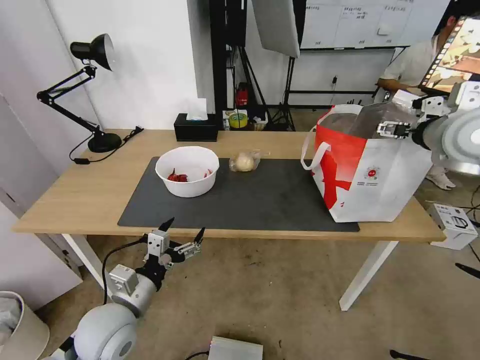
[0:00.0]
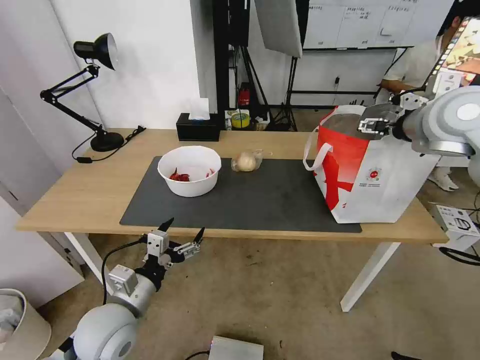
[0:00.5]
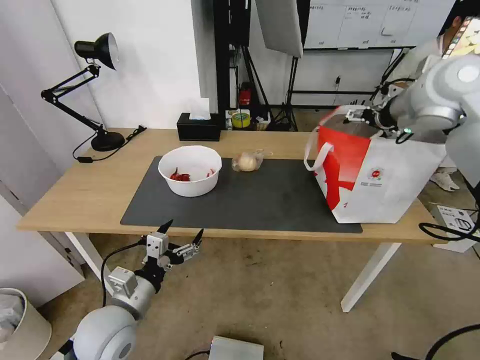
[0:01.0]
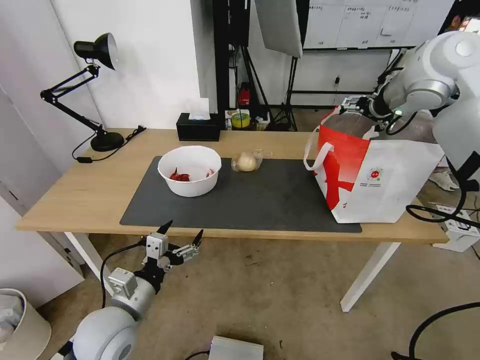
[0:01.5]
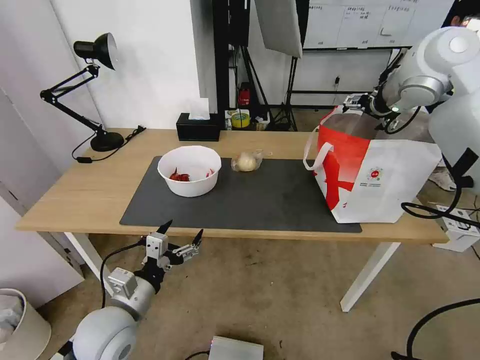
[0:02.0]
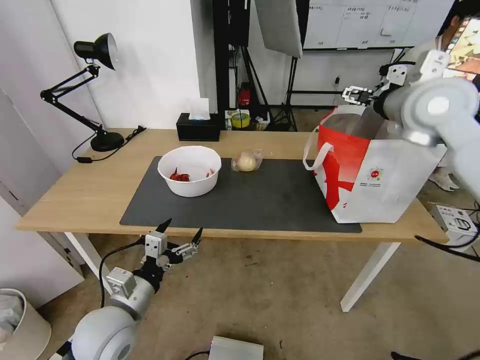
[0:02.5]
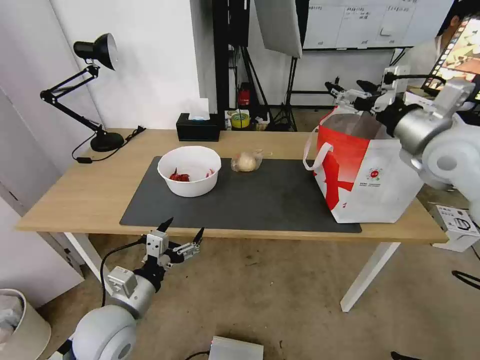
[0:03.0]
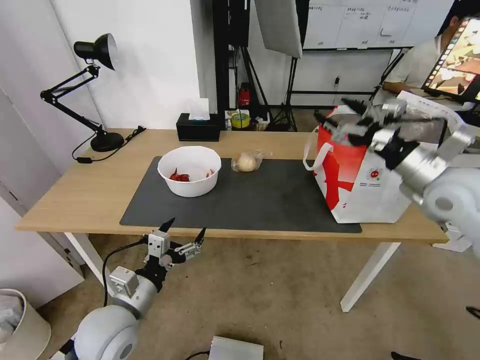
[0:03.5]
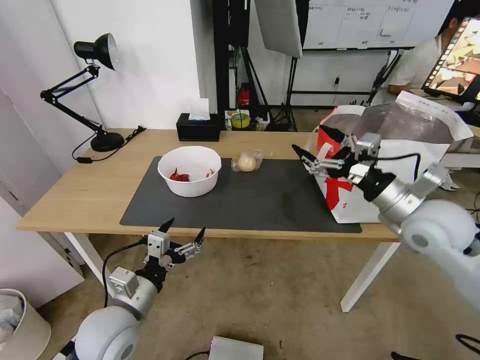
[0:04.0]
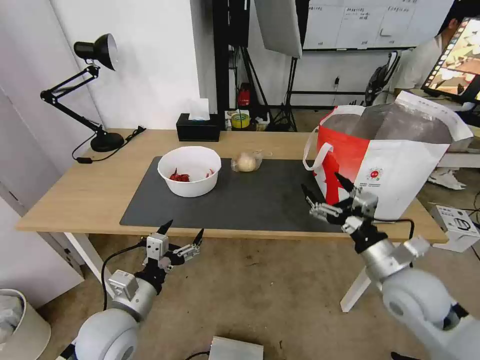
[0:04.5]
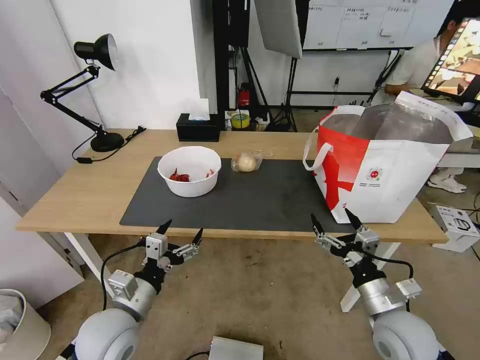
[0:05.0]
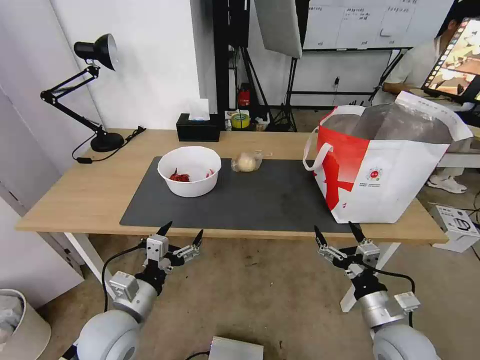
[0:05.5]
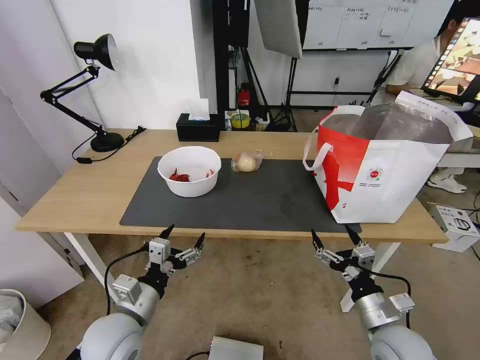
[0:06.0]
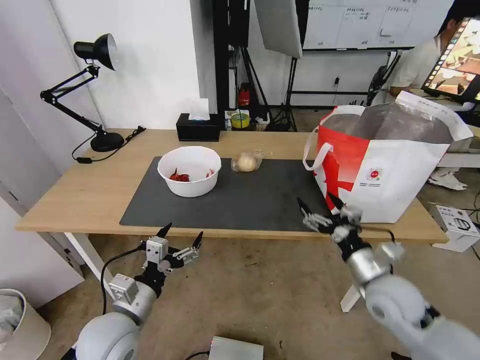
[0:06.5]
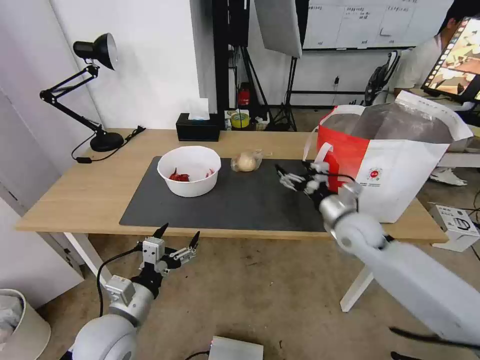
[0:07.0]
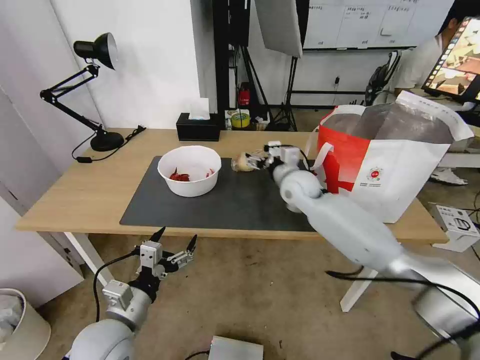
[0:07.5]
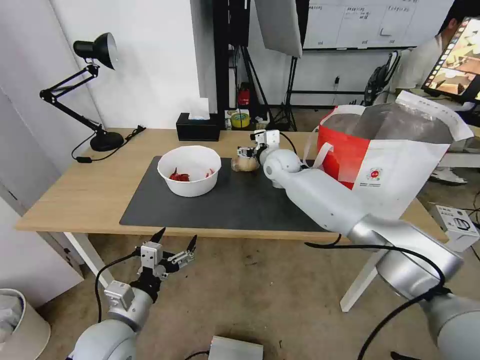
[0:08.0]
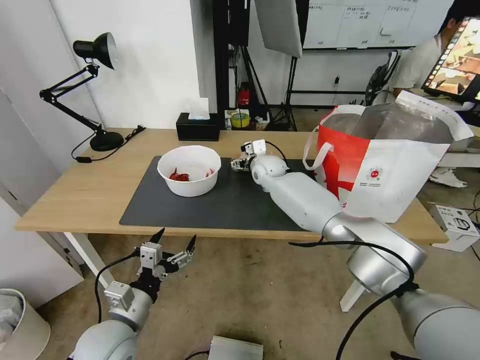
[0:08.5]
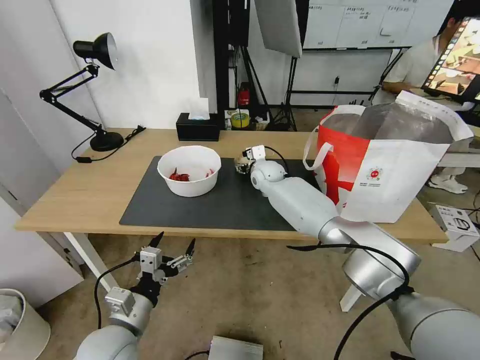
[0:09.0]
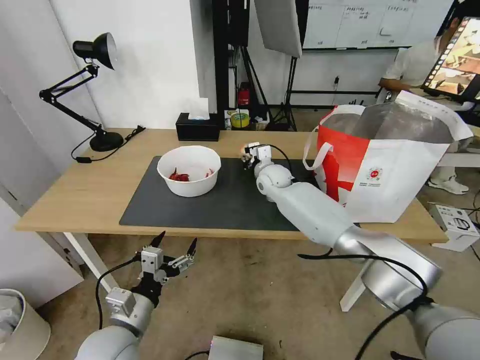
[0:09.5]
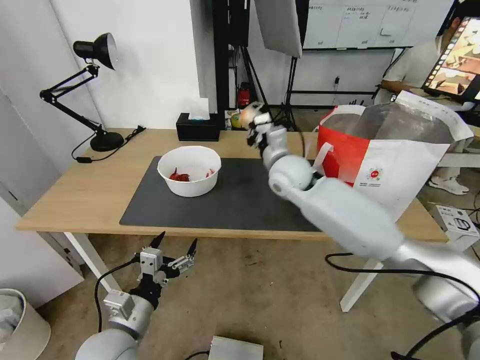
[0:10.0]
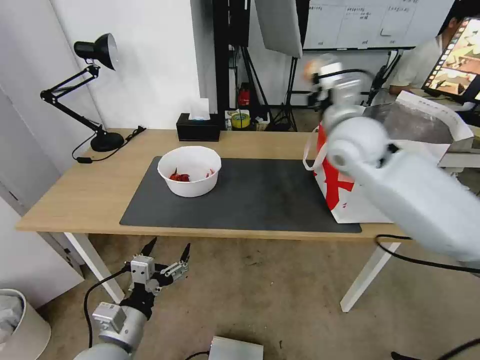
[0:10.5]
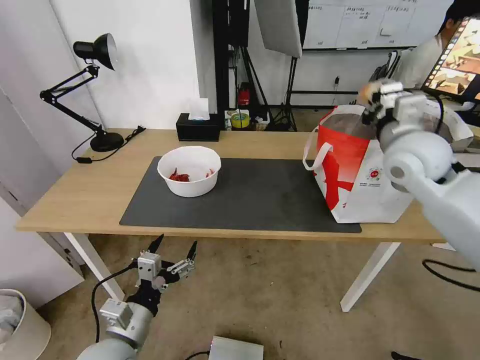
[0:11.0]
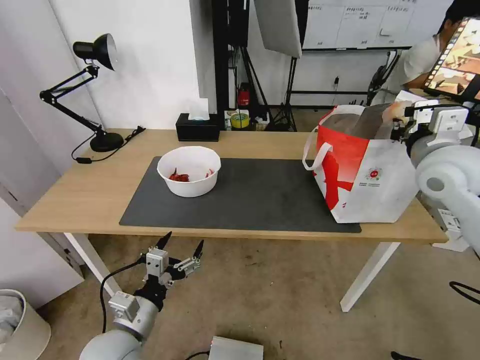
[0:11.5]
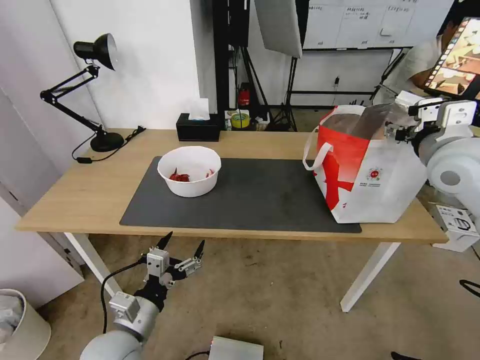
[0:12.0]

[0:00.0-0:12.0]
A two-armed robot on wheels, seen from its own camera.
Task of the whole recording: Pick up the trash from the table and place it into the takeout bag.
0:00.0 to 0:02.0: The right gripper goes approximately 15 cm forward, upward and to the left.
0:02.0 to 0:04.0: The right gripper moves downward and backward, approximately 30 cm.
0:04.0 to 0:06.0: The right gripper goes roughly 25 cm downward and backward.
0:06.0 to 0:08.0: The right gripper shifts approximately 50 cm forward and to the left.
0:08.0 to 0:10.0: The right gripper moves backward, roughly 10 cm, and closes its fingers.
0:10.0 to 0:12.0: The right gripper is displaced to the right, upward and backward by roughly 30 cm, and opens its fingers.

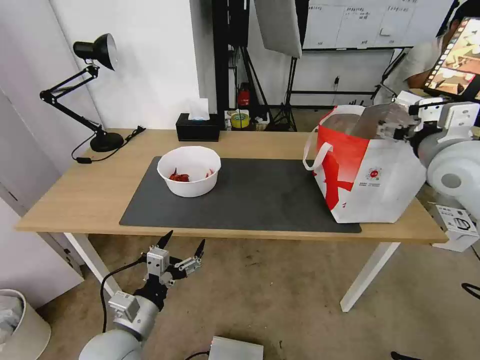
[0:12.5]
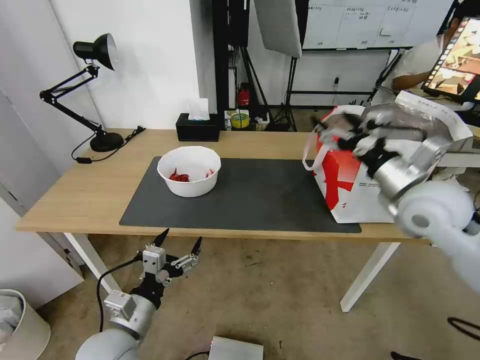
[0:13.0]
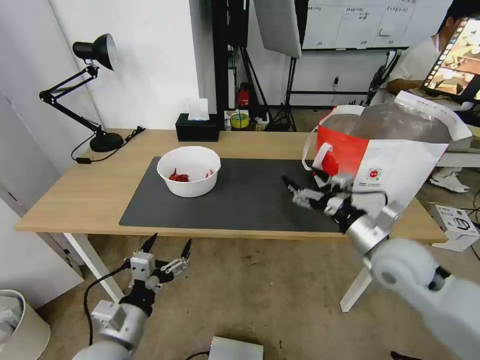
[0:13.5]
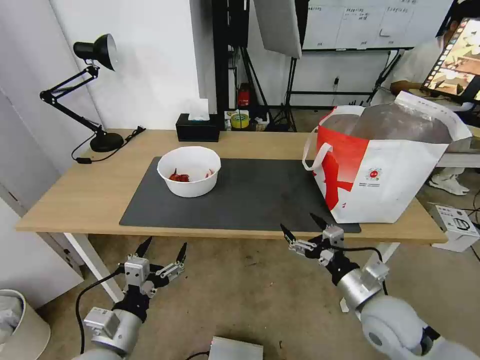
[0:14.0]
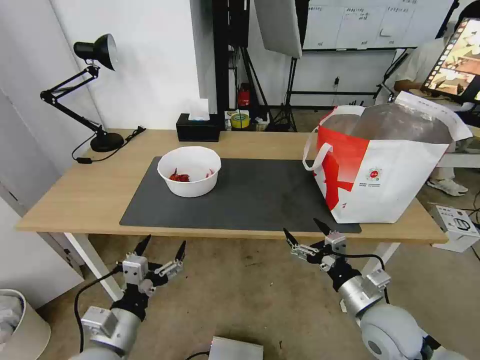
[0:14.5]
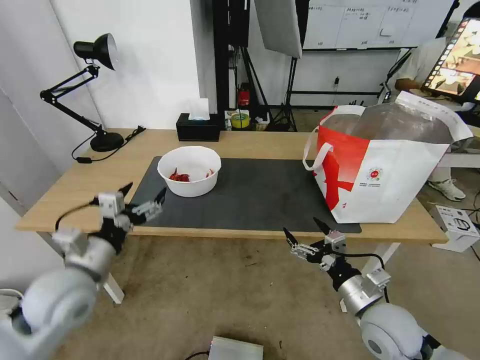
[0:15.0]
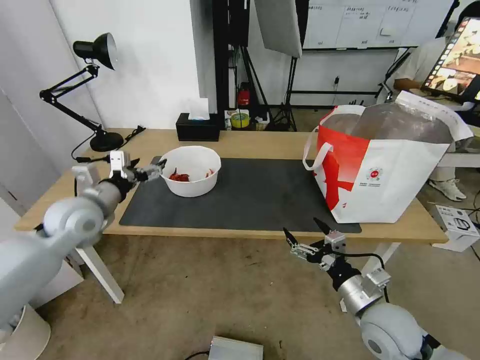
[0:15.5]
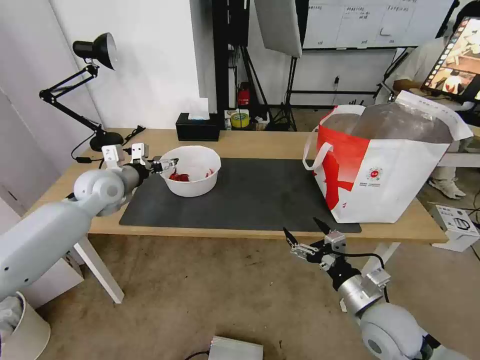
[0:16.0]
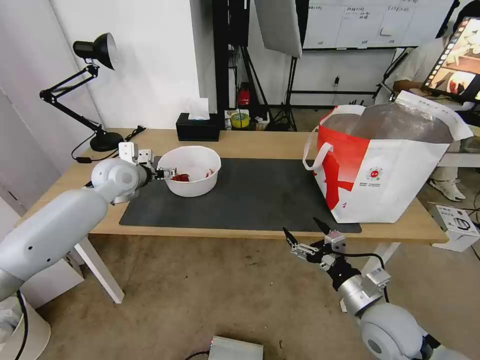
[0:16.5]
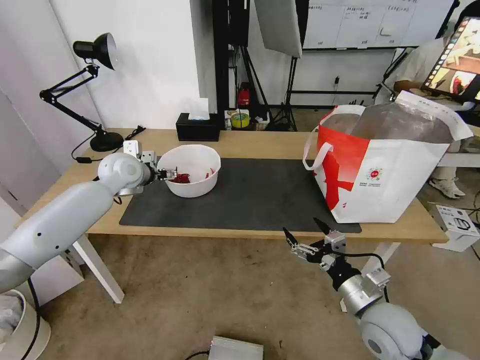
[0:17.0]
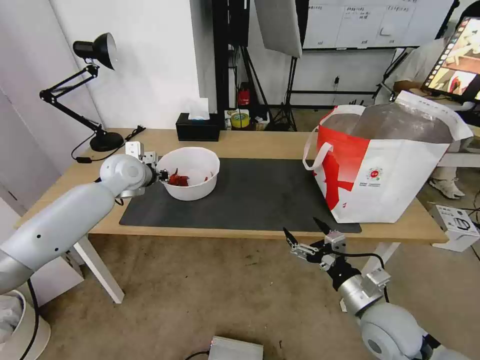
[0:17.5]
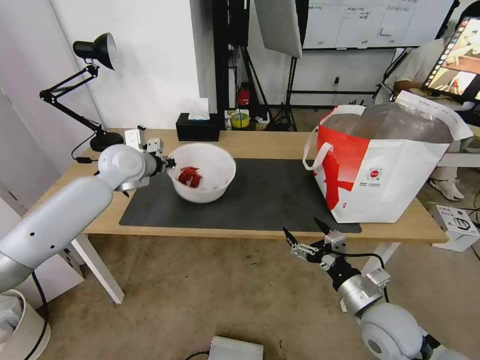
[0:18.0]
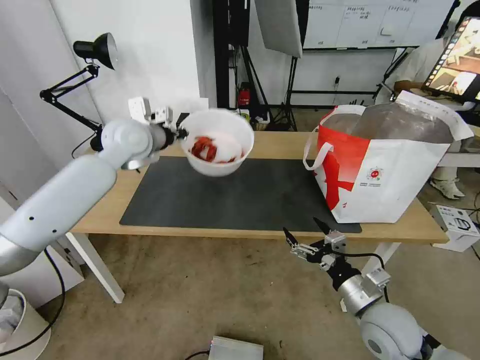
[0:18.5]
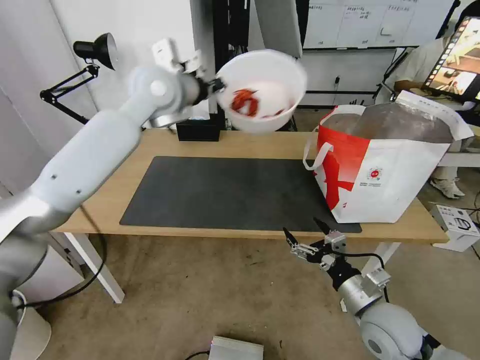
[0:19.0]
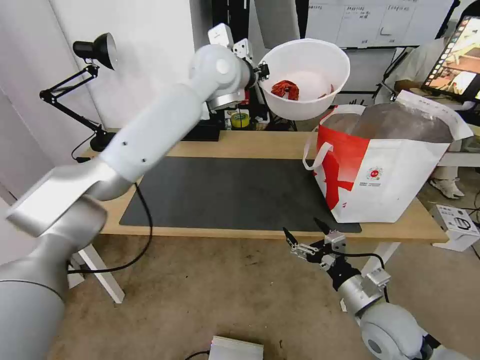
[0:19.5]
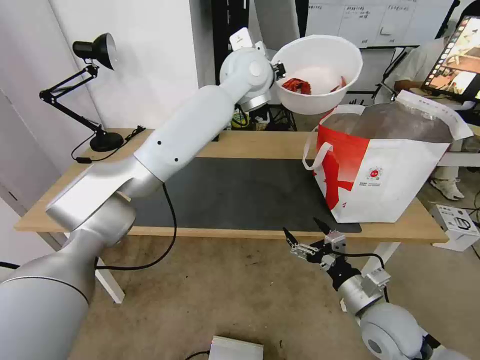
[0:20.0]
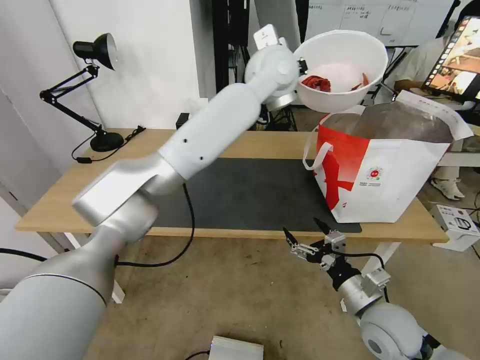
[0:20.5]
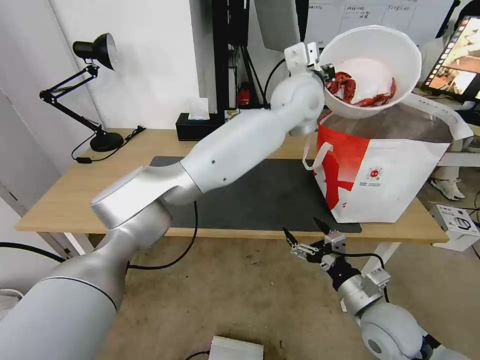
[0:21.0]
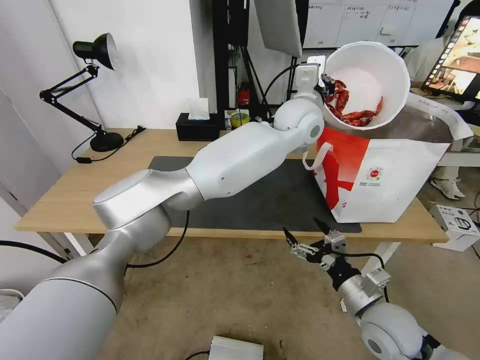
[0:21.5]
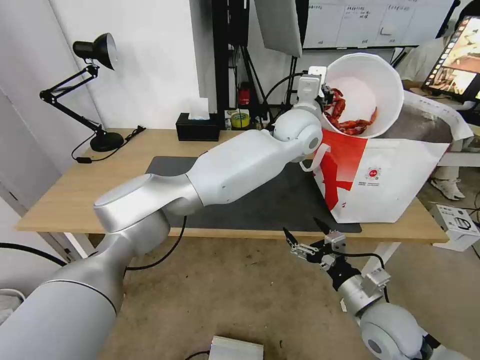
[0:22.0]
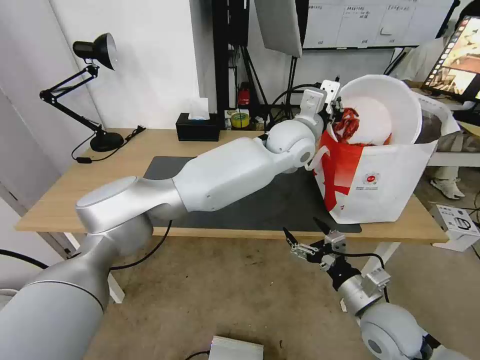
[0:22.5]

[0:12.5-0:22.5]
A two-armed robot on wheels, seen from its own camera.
Task of the whole recording: Pick up the trash from the table and place it into the takeout bag.
0:12.5 to 0:14.5: The right gripper travels downward and backward by about 30 cm.
0:14.5 to 0:16.5: The left gripper heads forward, covering approximately 35 cm.
0:16.5 to 0:18.5: The left gripper is displaced upward and to the right by roughly 15 cm, and closes up.
0:18.5 to 0:20.5: The left gripper is displaced to the right by some 30 cm.
0:20.5 to 0:22.5: The left gripper goes about 10 cm downward.

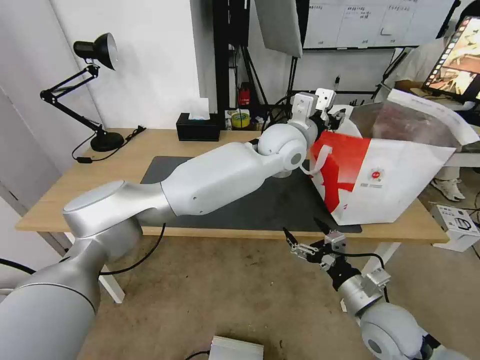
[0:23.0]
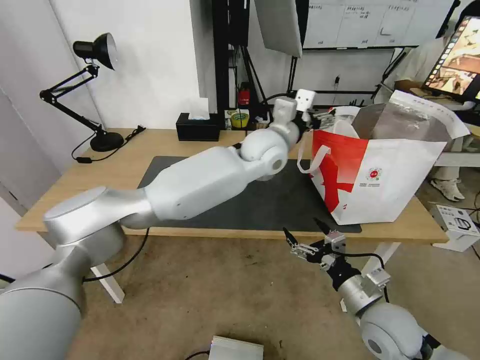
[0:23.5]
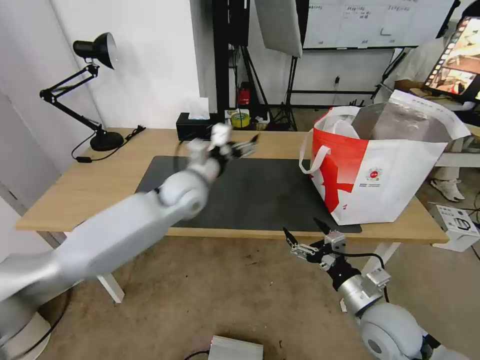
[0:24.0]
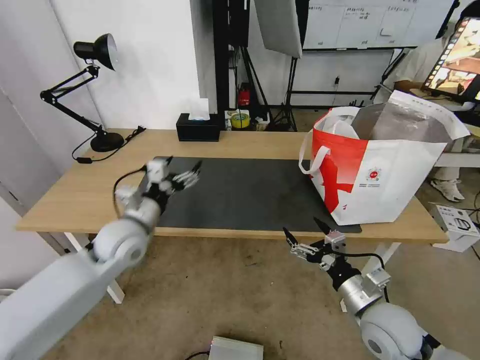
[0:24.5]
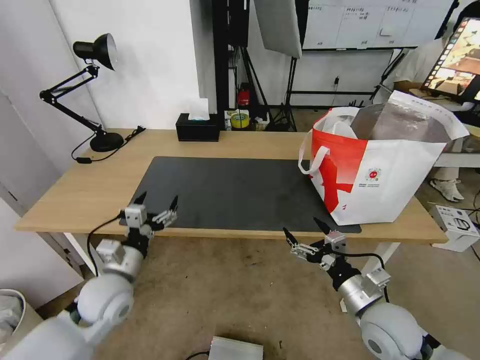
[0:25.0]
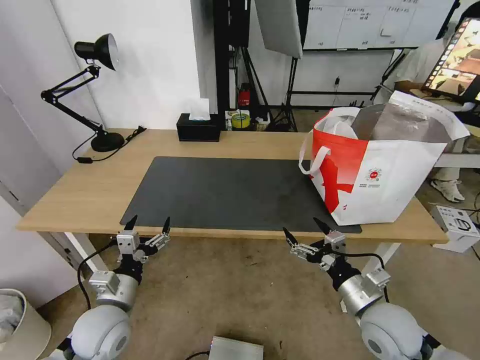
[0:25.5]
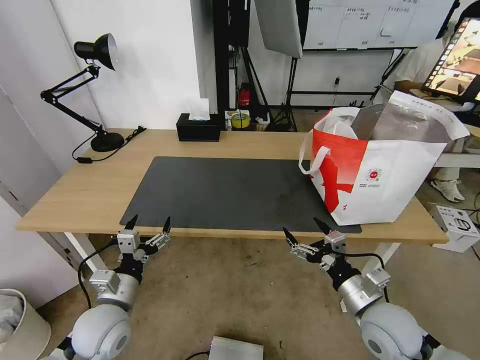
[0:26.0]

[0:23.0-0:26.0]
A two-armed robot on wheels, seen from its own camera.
Task of the whole recording: Pick up the trash from the table and place it into the takeout bag.
0:23.0 to 0:24.5: The left gripper moves to the left, downward and backward, about 40 cm, and opens.
0:24.5 to 0:26.0: The left gripper is displaced backward and downward by some 15 cm.
